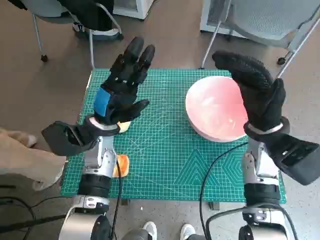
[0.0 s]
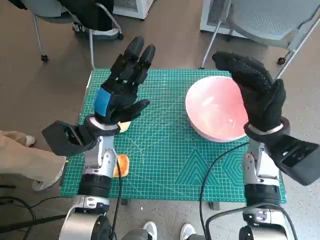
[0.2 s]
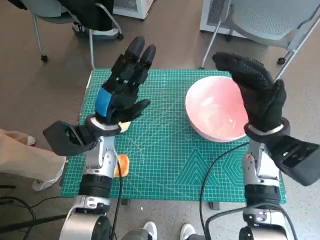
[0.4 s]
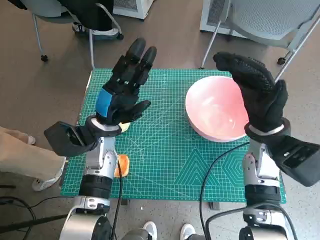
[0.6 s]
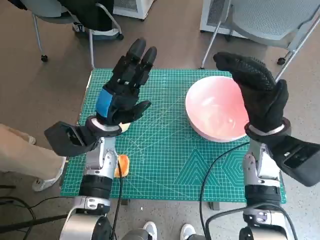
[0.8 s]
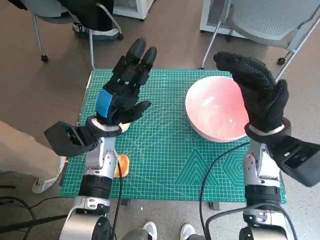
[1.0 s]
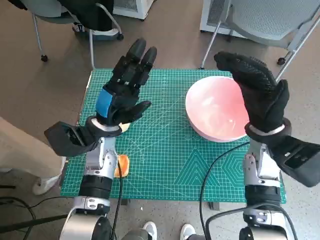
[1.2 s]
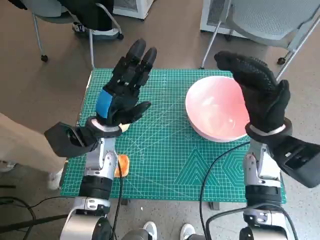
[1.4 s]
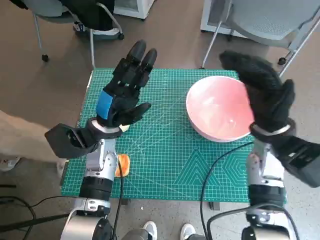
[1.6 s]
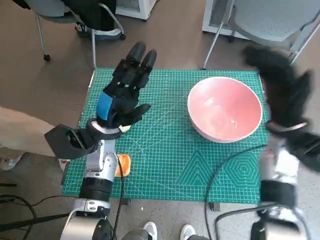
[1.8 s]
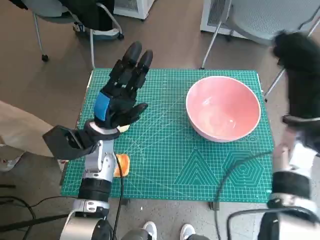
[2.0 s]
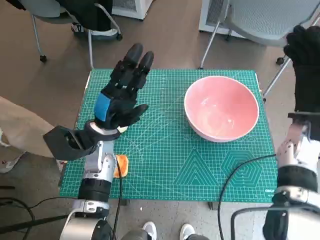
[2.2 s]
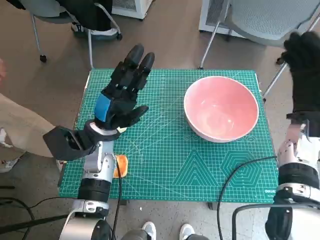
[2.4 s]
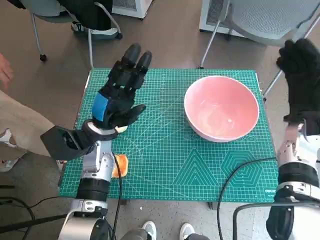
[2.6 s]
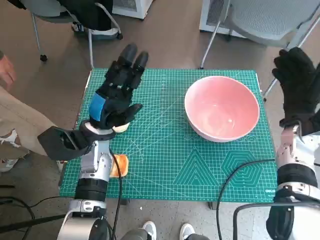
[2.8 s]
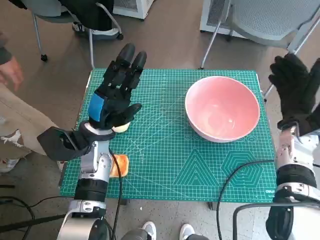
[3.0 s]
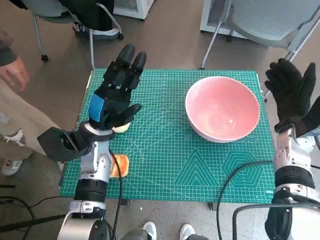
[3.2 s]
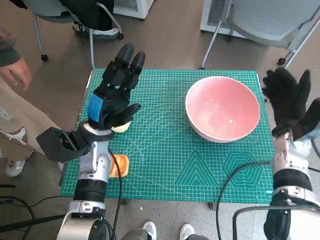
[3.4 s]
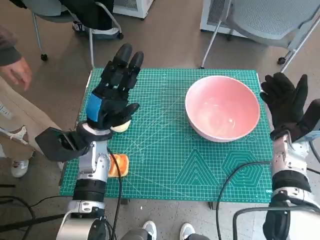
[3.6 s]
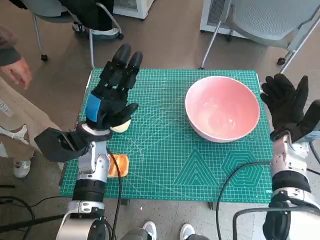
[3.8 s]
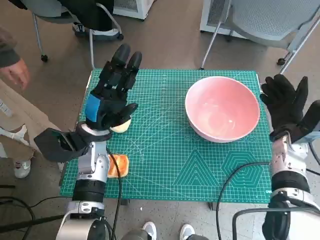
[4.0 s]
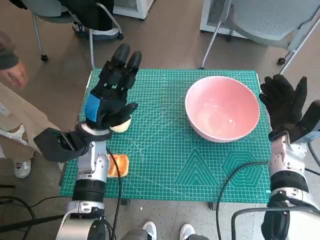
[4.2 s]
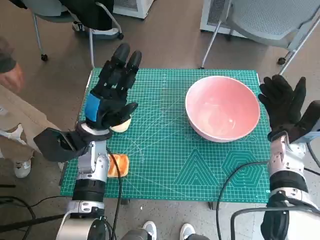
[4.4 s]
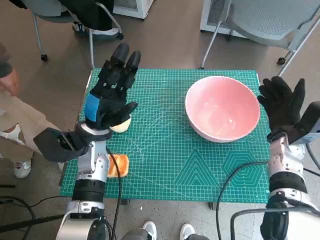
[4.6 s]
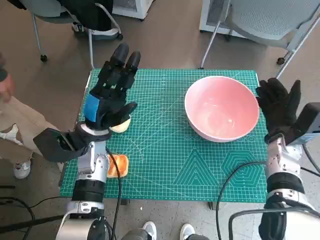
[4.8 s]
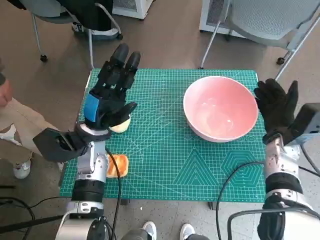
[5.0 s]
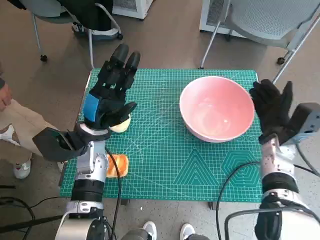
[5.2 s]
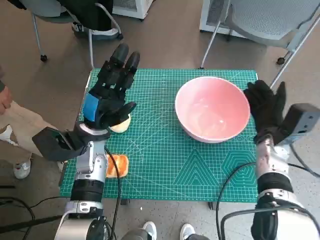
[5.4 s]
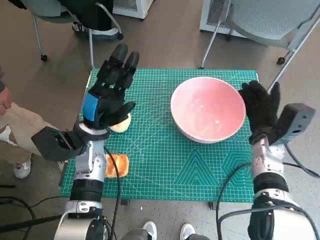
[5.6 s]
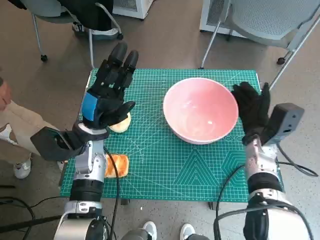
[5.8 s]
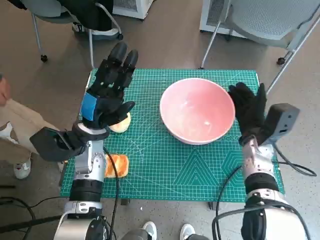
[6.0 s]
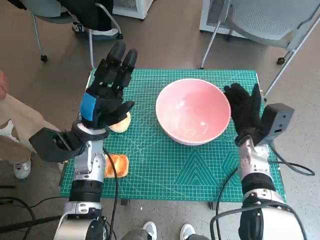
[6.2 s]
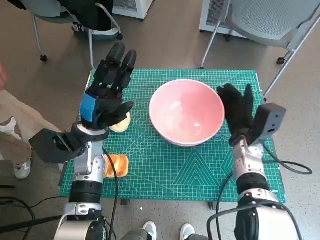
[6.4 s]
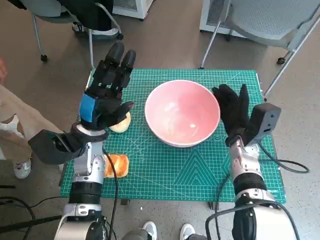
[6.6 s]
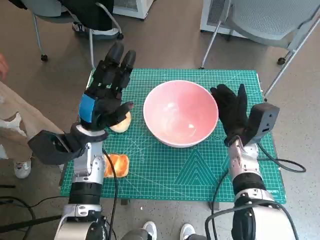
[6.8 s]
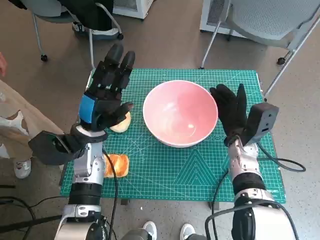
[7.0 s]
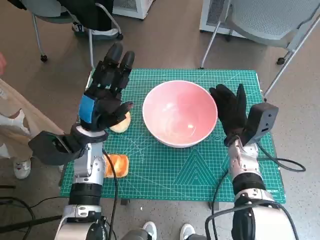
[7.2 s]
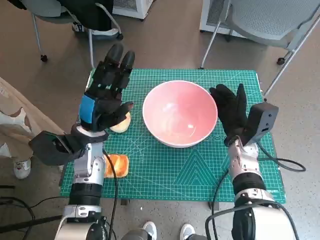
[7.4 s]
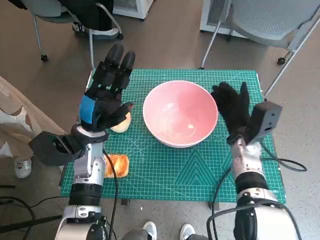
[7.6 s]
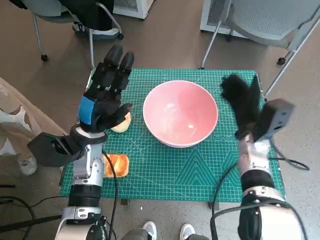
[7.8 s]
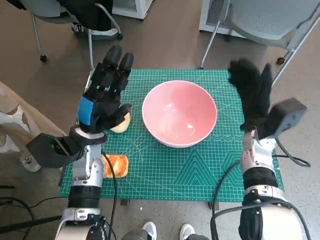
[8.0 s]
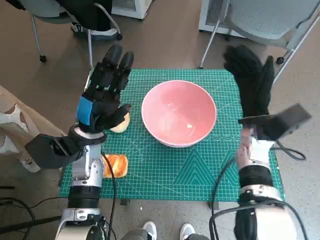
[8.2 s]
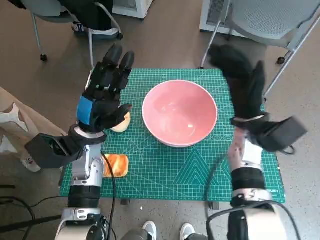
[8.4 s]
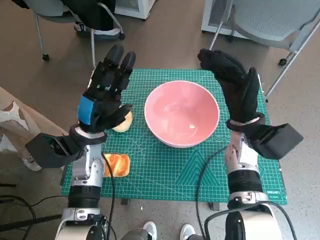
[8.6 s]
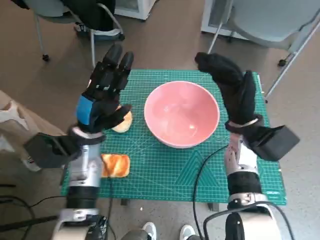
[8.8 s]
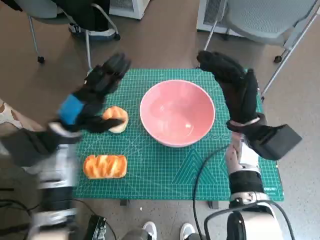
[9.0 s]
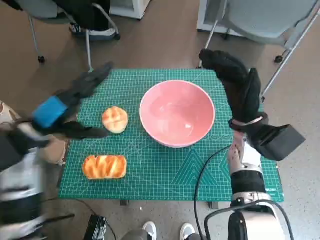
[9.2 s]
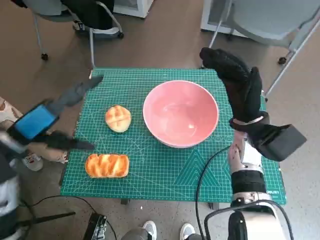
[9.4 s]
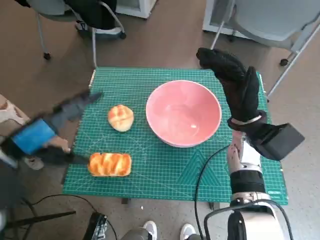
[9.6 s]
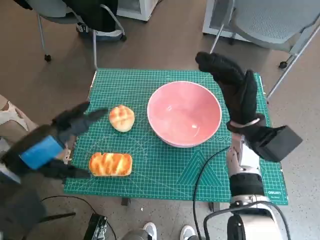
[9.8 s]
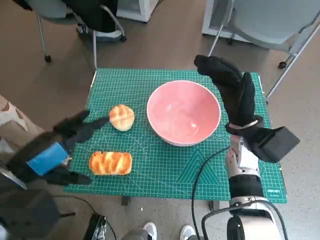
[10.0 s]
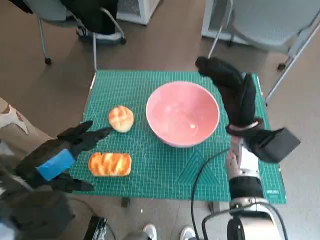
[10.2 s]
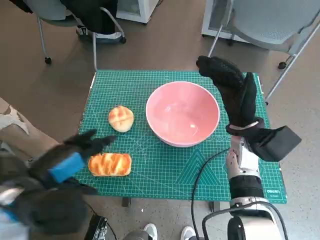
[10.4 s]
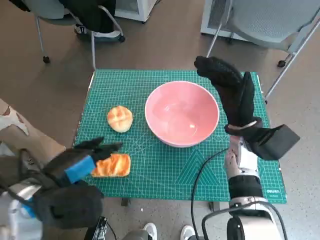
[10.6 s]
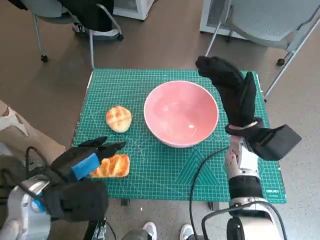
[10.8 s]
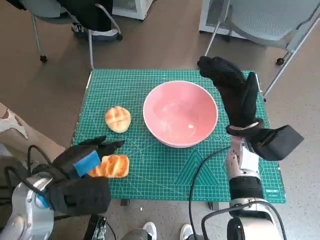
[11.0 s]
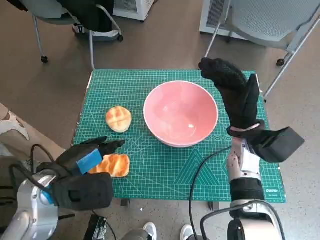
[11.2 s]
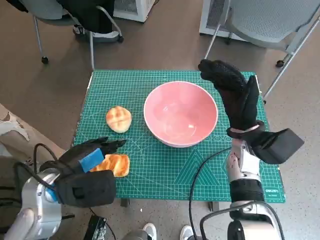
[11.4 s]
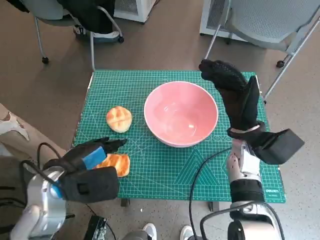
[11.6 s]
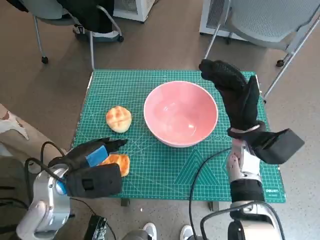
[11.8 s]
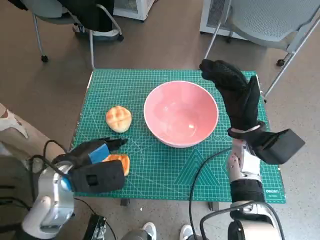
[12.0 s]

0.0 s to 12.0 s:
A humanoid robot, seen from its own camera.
Step, 0.0 to 7.6 s: Move the pink bowl to the center of table with right hand.
1.6 to 3.0 s: The right hand is displaced to the right by roughly 5 cm.
3.0 to 4.4 s: The hands stay close to where they were, moving slightly.
4.4 to 6.0 s: The right hand heads to the left, covering roughly 5 cm.
7.6 to 9.0 s: The right hand travels upward by about 5 cm.
9.0 to 10.4 s: The left hand travels backward by roughly 10 cm.
10.4 to 12.0 s: The left hand heads downward and forward, covering approximately 10 cm.

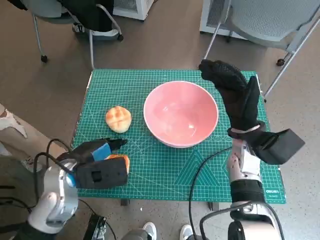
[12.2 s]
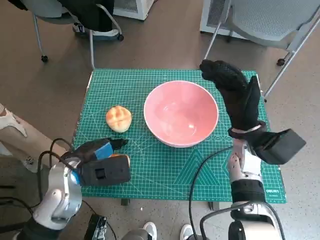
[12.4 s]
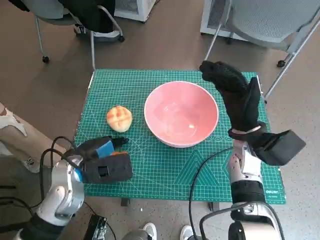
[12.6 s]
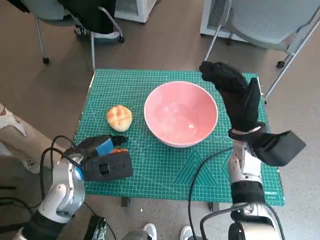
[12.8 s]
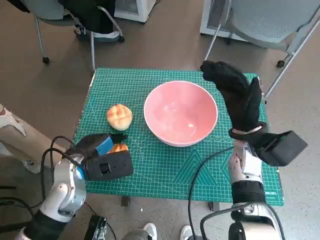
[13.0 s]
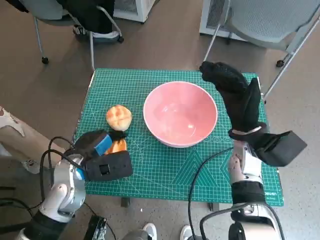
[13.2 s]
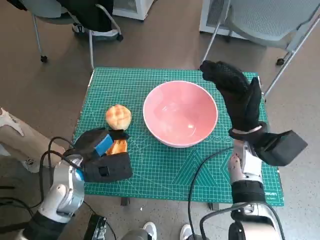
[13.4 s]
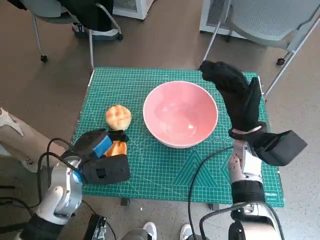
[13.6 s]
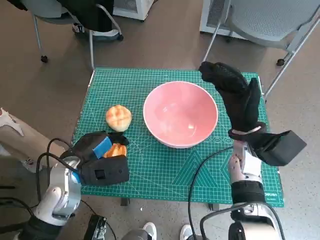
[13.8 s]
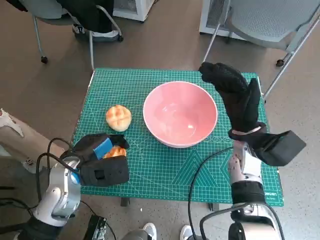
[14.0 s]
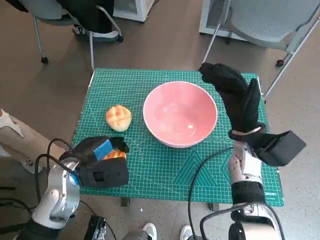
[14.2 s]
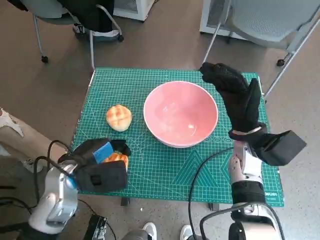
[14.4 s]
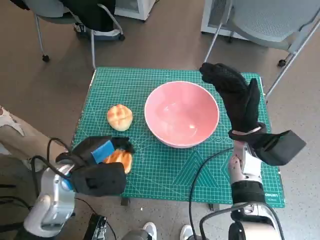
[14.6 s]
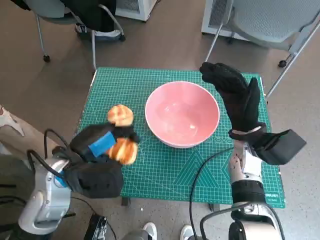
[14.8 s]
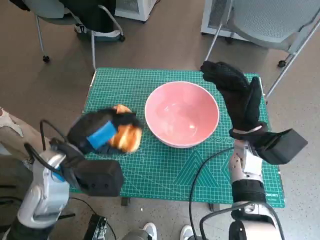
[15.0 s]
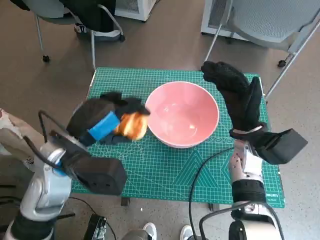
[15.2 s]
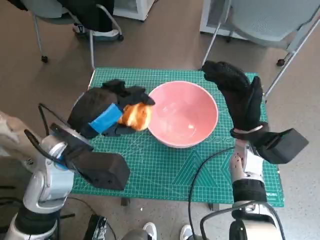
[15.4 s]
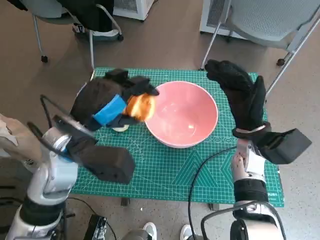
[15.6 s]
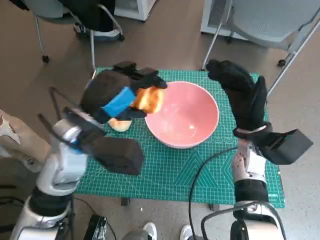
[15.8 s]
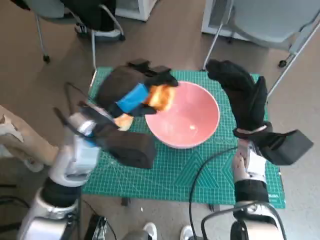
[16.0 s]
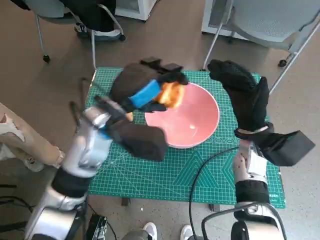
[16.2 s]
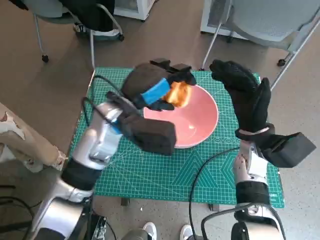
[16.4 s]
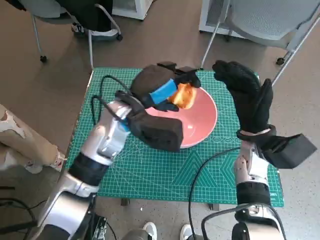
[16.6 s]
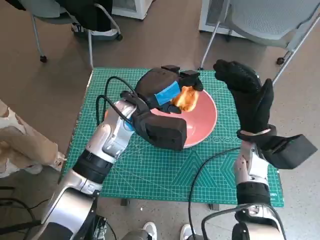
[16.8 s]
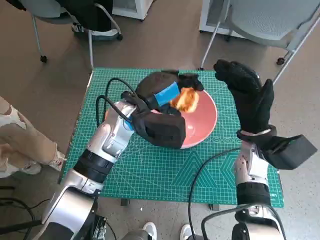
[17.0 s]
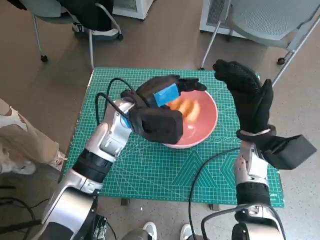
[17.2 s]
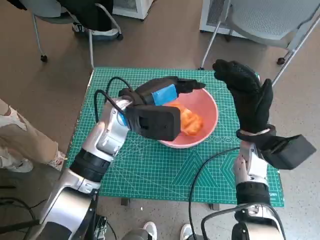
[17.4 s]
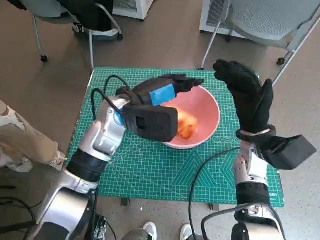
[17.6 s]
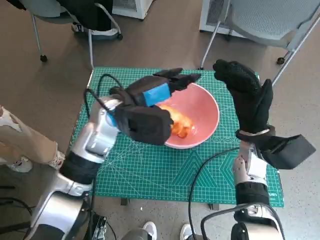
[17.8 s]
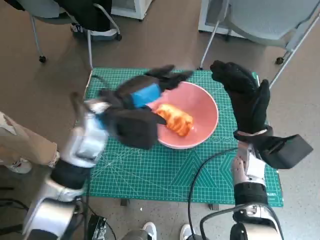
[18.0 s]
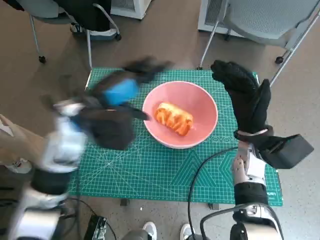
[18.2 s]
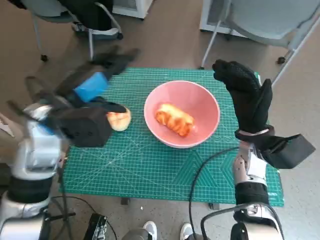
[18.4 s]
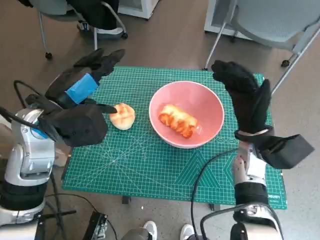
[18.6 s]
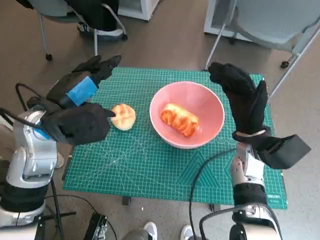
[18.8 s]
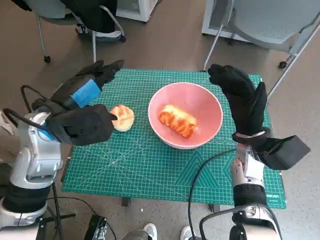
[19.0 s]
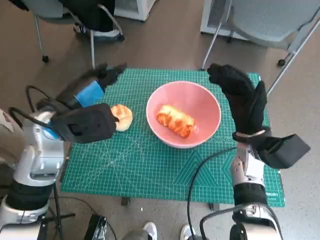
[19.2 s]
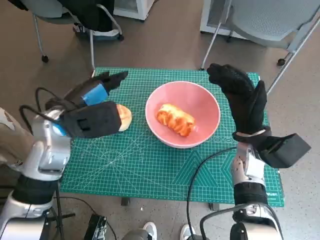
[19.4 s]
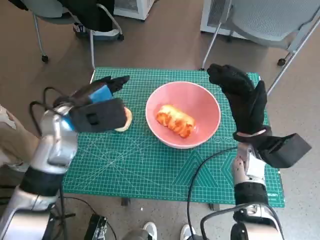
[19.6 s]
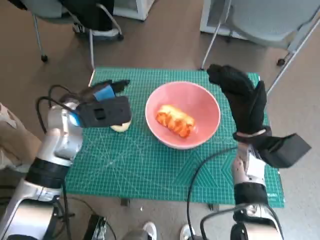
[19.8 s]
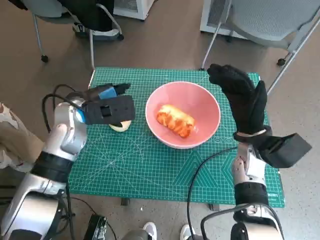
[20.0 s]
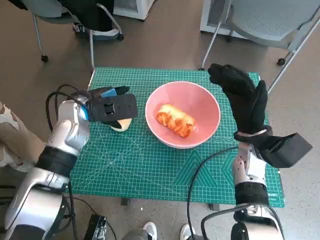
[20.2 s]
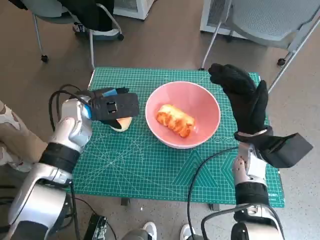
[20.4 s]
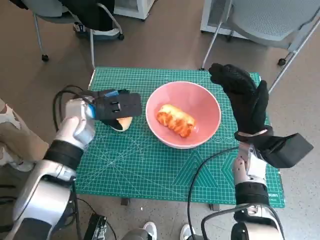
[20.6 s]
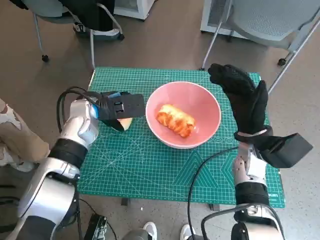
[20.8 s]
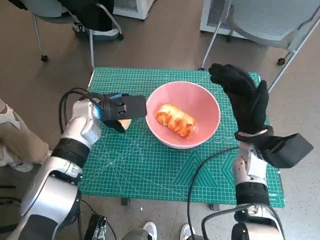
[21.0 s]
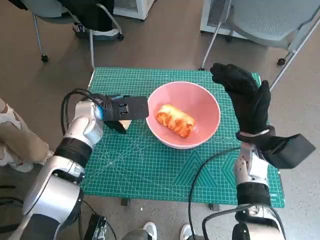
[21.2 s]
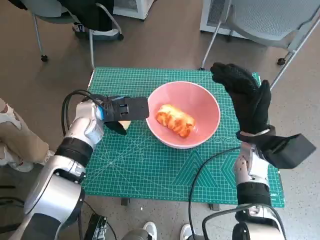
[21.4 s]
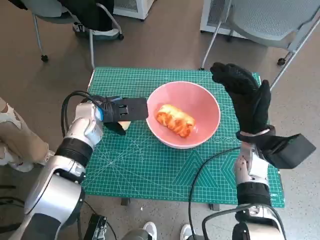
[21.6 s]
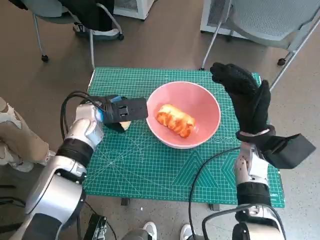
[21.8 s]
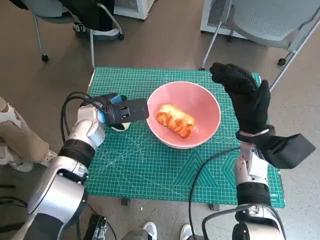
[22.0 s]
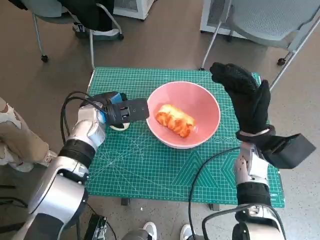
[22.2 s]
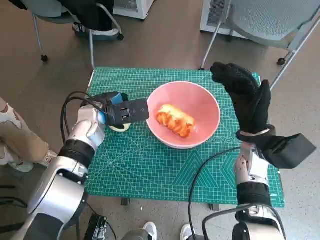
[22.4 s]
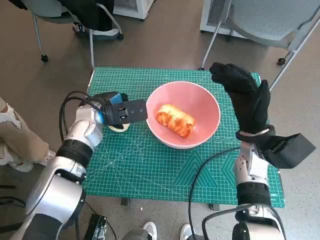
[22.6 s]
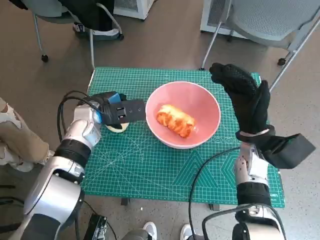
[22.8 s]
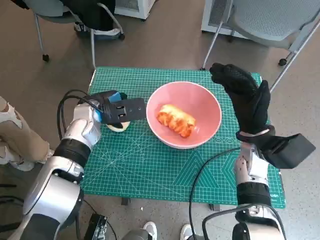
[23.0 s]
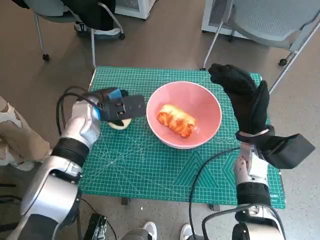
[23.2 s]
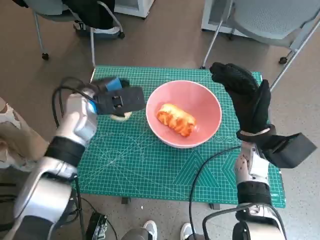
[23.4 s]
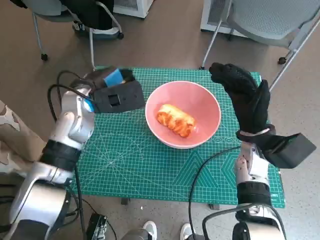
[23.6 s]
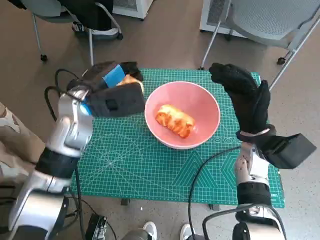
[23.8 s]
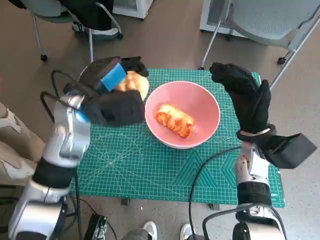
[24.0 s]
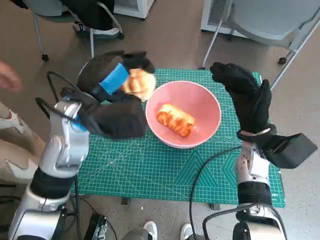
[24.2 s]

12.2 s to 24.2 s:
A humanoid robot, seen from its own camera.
Step, 13.0 to 17.6 s: Place the long bread in pink bowl with left hand.
Step, 17.8 to 22.0 s: Grasp the round bread with left hand.
12.2 to 13.8 s: The hands stay close to where they were, moving slightly.
13.8 to 15.2 s: The left hand goes roughly 10 cm upward.
15.2 to 16.6 s: The left hand shifts about 10 cm forward and to the right.
16.6 to 18.2 s: The left hand goes roughly 5 cm to the left.
18.2 to 19.8 s: The left hand moves about 5 cm.
19.8 to 21.2 s: The left hand moves approximately 5 cm.
21.2 to 22.6 s: There are only small adjustments of the hands.
22.6 to 24.2 s: The left hand shifts approximately 10 cm upward and backward.
